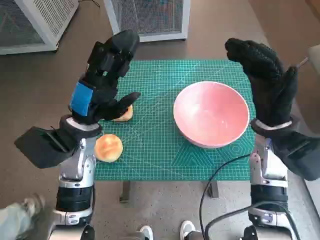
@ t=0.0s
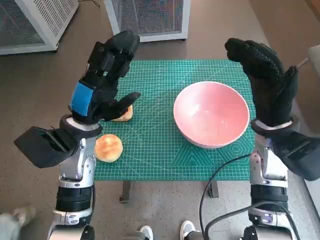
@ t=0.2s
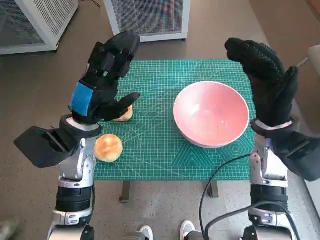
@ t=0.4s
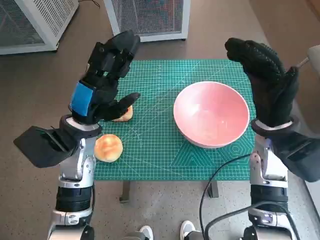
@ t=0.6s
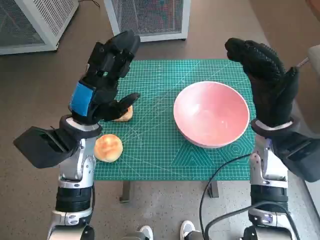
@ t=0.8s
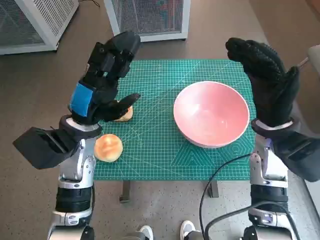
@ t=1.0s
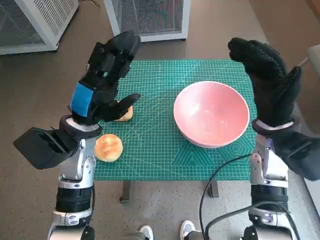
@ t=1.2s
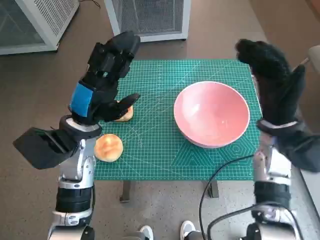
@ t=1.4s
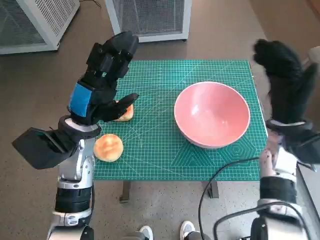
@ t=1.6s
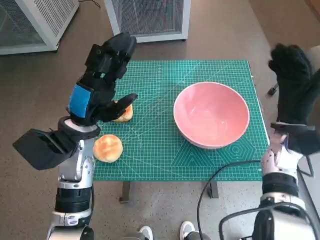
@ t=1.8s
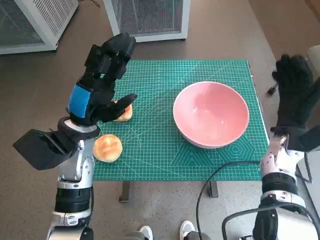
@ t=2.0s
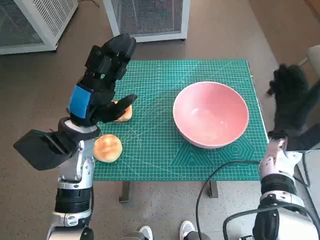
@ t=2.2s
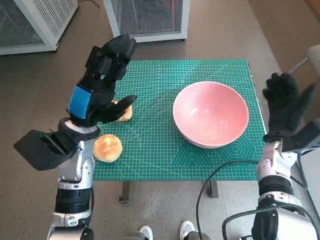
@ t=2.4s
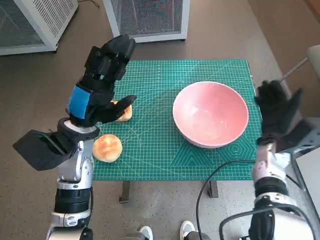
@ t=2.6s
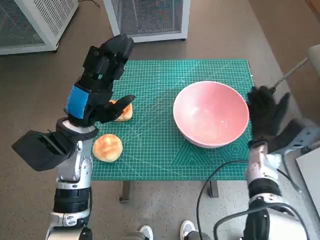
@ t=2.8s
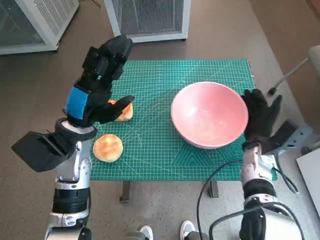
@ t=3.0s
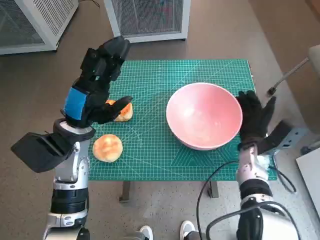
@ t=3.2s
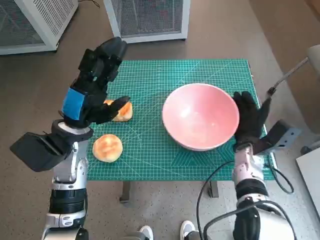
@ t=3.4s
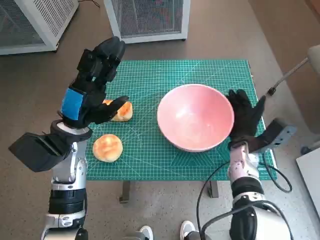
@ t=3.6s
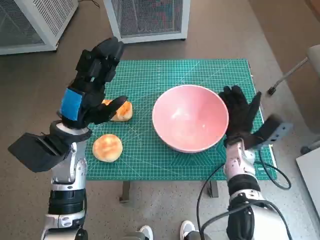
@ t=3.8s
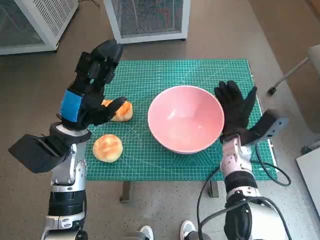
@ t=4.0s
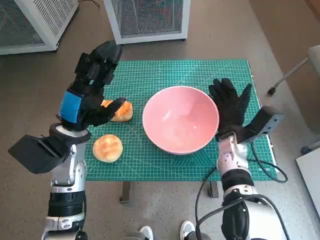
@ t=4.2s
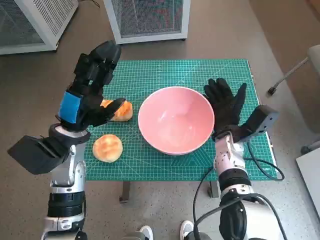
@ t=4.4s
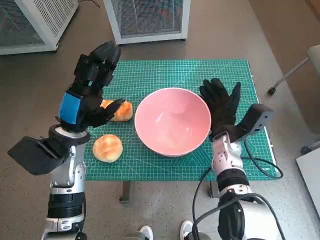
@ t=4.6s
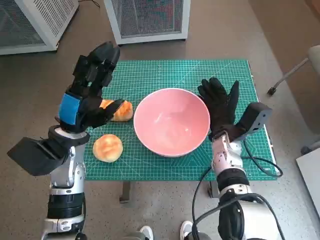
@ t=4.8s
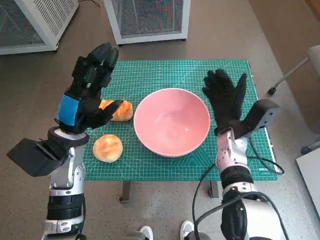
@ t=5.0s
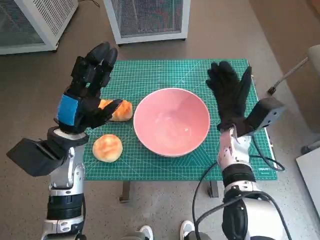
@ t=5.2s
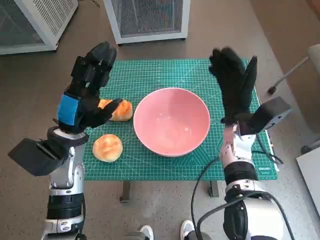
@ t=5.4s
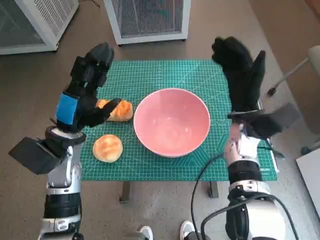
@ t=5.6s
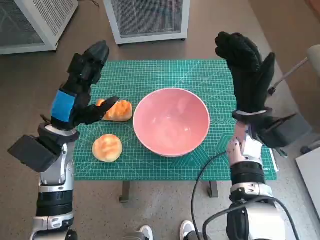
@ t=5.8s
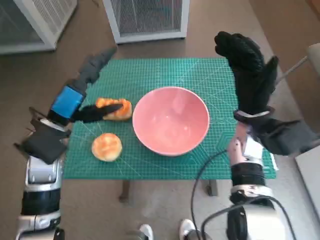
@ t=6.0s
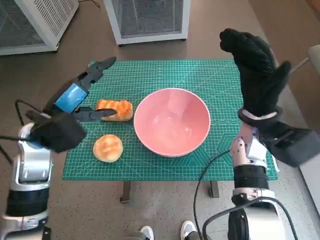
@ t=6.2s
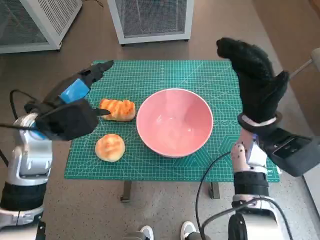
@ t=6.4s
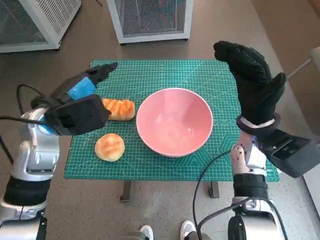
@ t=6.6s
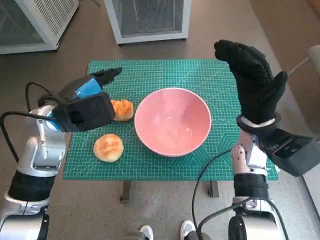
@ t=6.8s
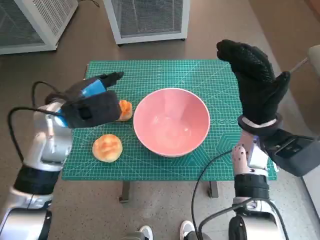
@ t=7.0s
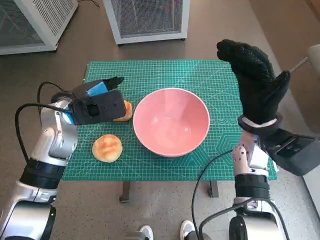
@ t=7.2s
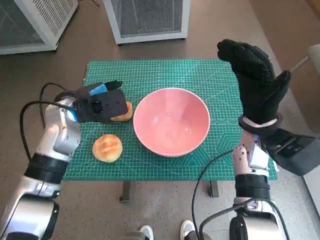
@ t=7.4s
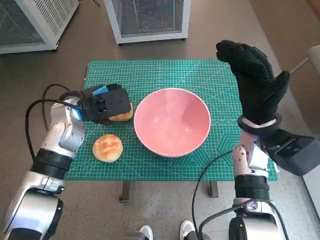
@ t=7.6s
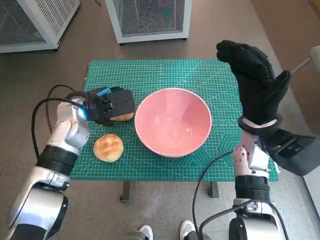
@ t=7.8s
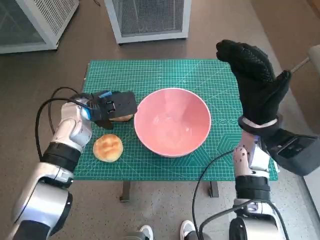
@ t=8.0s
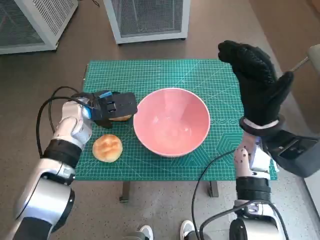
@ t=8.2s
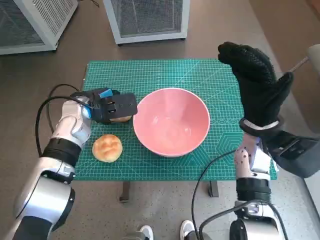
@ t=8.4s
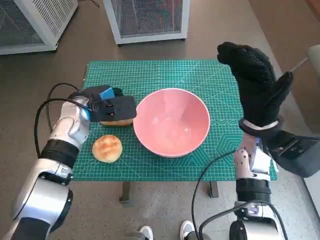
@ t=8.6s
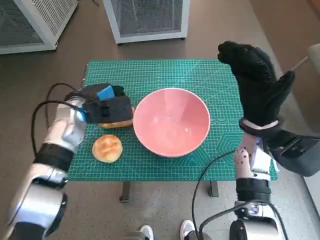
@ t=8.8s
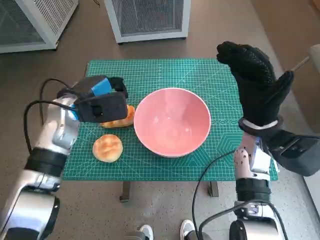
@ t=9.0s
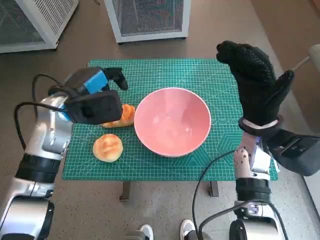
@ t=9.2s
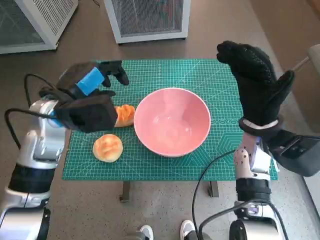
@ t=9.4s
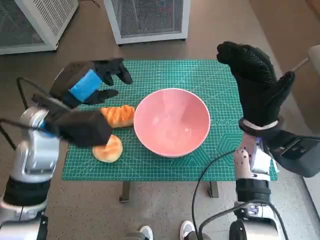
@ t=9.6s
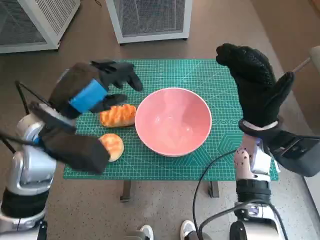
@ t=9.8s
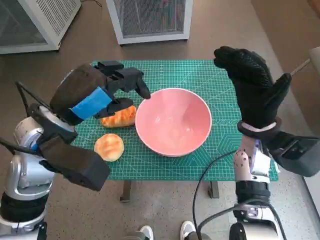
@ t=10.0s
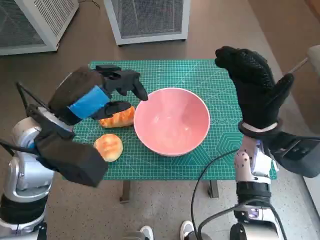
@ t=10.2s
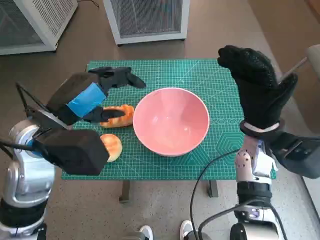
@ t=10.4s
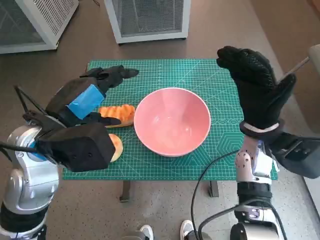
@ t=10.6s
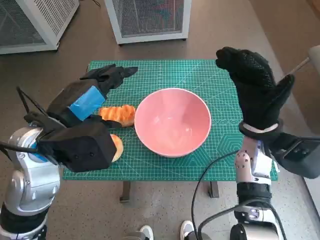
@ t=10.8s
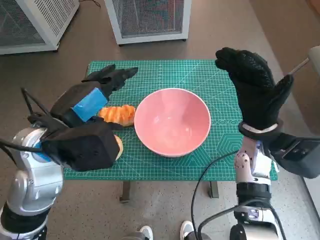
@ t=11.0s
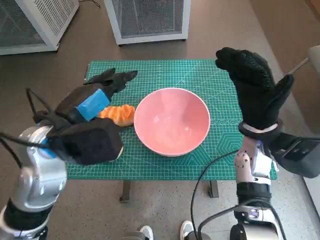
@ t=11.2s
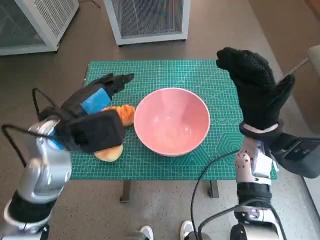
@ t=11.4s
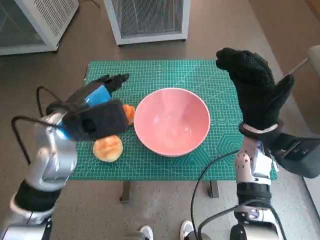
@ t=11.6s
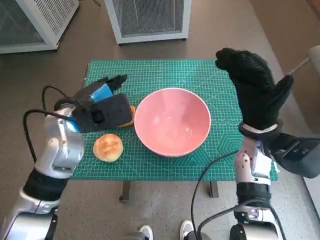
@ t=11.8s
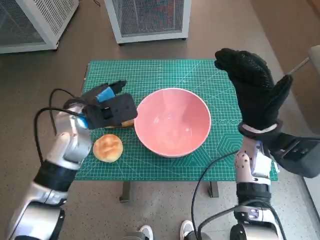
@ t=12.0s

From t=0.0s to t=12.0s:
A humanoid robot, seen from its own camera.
Task of the whole recording: Push the bowl into the center of the table and put the bread into the bowl.
Step, from t=0.0s to t=5.0s: Move the pink bowl to the center of table with right hand.
From t=1.6s to t=3.0s: The right hand goes some 10 cm downward.
From t=3.0s to t=4.4s: The right hand goes some 5 cm to the left.
From t=4.4s to t=6.0s: The right hand is displaced upward by roughly 10 cm.
From t=6.0s to t=7.6s: The left hand goes approximately 5 cm forward.
From t=7.6s to t=9.0s: There are only small adjustments of the hands.
From t=9.0s to t=10.4s: The left hand travels backward and upward by some 10 cm.
From t=10.4s to t=12.0s: The left hand is displaced forward and downward by roughly 10 cm.

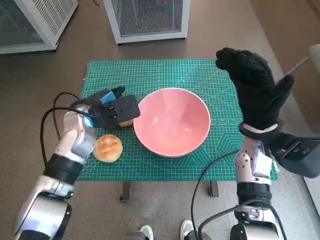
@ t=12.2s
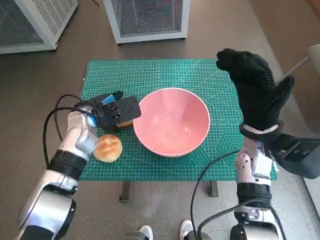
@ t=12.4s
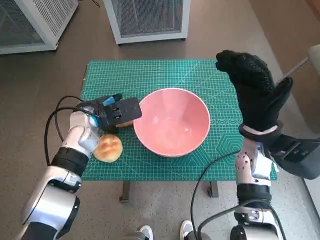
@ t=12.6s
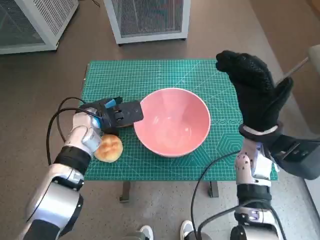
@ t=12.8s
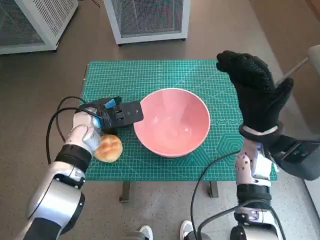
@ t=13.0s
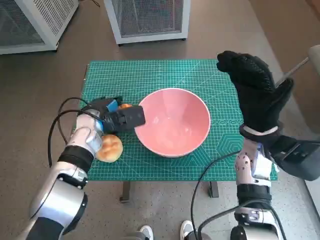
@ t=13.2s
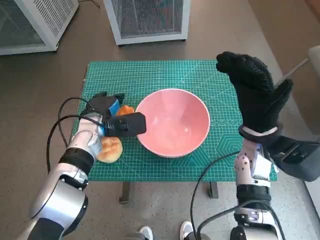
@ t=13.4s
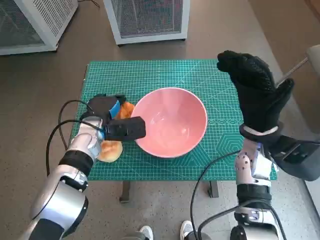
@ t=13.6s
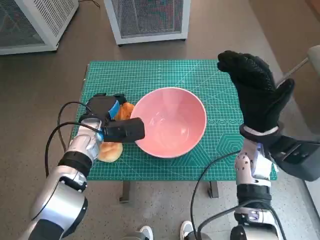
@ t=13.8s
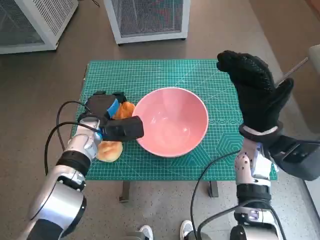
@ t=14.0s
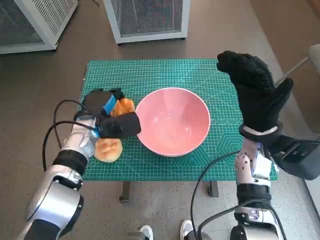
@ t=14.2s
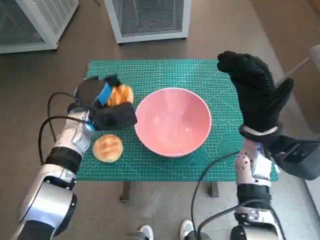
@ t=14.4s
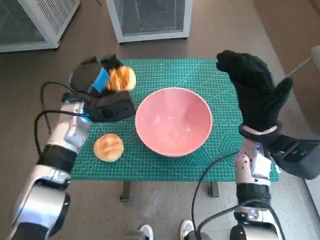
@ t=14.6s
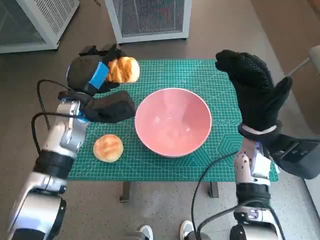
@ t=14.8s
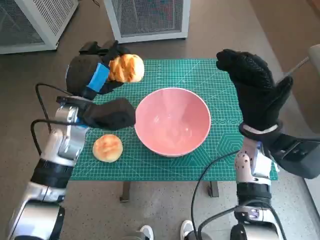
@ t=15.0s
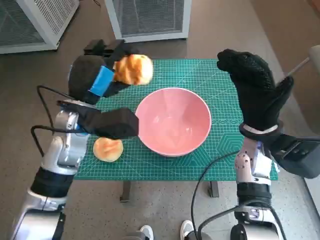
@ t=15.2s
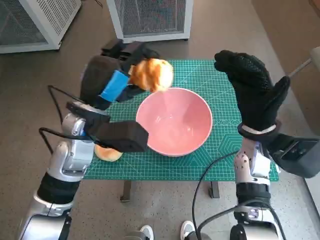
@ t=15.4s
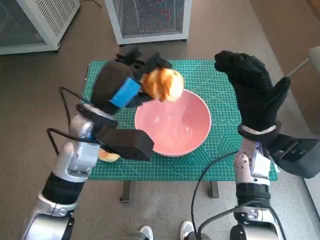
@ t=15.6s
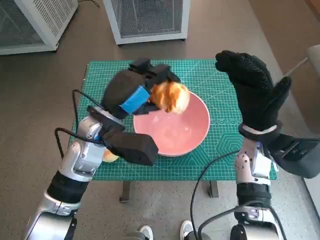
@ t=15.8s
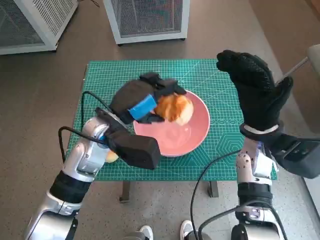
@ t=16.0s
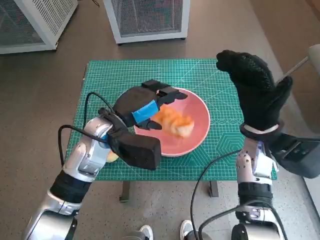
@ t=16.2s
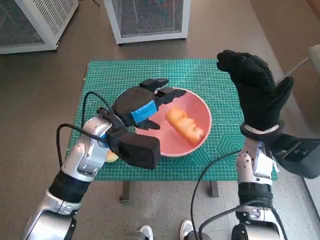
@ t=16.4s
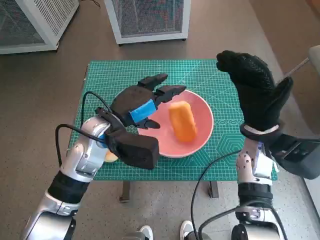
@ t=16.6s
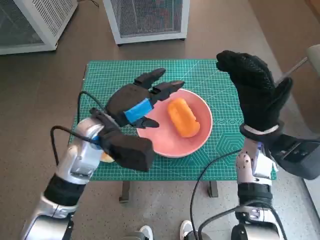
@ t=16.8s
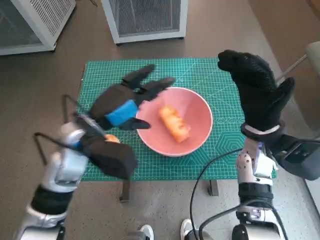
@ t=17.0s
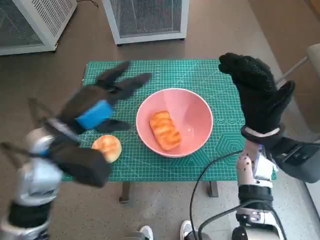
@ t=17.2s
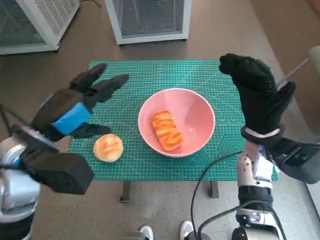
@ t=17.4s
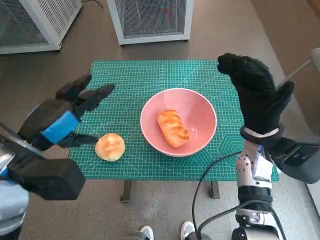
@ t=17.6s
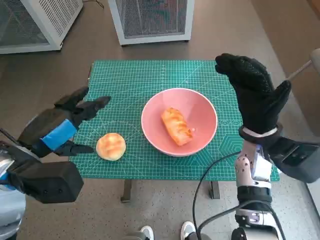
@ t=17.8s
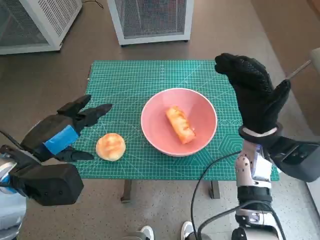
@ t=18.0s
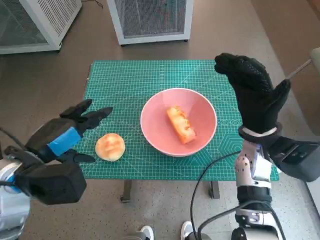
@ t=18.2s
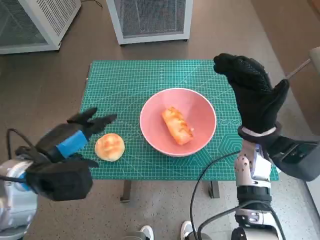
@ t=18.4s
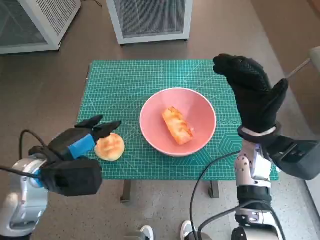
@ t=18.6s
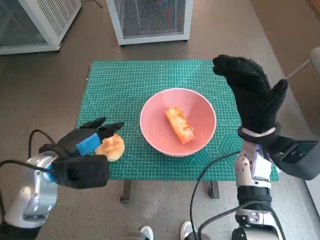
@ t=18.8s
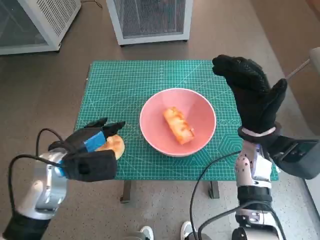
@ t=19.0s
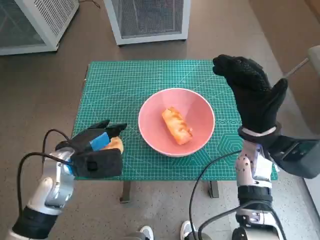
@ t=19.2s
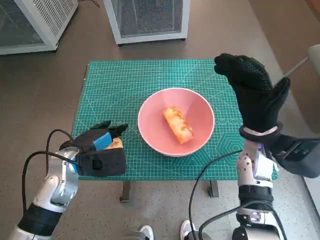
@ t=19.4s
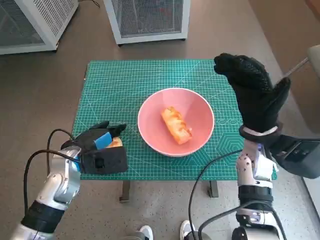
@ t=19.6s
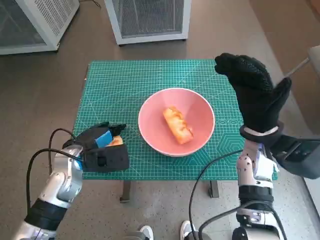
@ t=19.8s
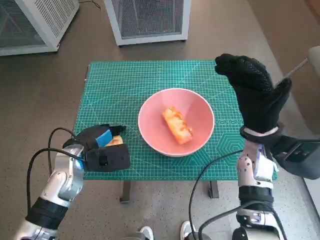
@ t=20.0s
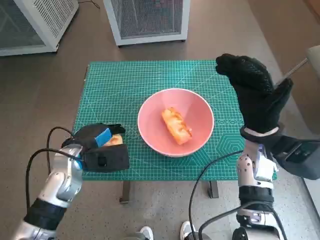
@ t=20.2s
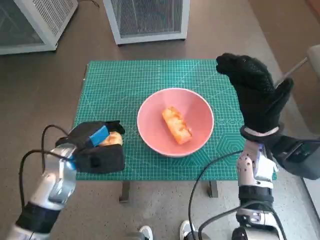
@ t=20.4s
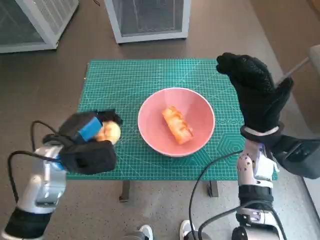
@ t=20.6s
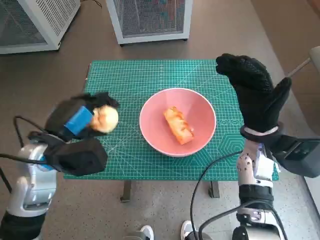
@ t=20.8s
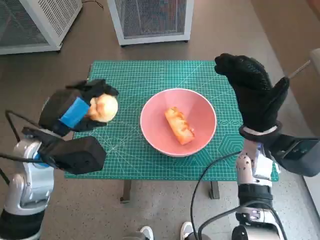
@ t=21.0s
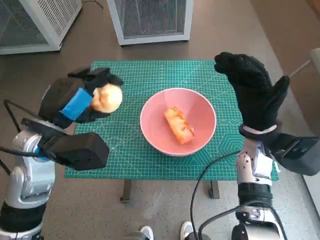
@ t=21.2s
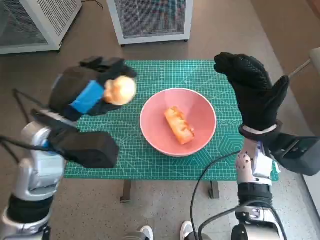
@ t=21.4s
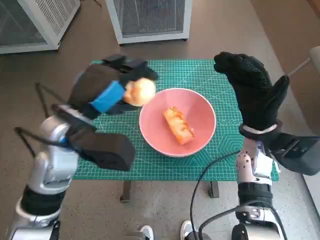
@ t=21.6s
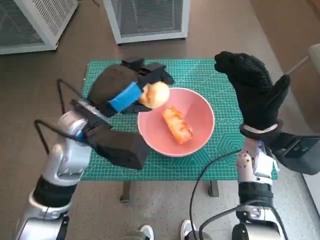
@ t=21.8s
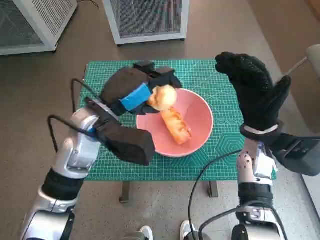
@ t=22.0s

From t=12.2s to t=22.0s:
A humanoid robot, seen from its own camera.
Task of the whole recording: Push the bowl into the center of the table and put the bread into the bowl.
Step, from t=13.8s to t=16.2s: Place the long bread in pink bowl with left hand.
Step, from t=16.4s to t=19.6s: Grasp the round bread with left hand.
From t=12.2s to t=13.6s: The left hand heads downward, covering approximately 5 cm.
From t=13.6s to t=15.0s: The left hand travels upward by about 10 cm.
From t=15.0s to t=16.4s: The left hand heads to the right, covering about 5 cm.
From t=16.4s to t=17.8s: The left hand travels to the left and backward by roughly 15 cm.
From t=17.8s to t=19.2s: The left hand heads downward, covering about 10 cm.
From t=19.2s to t=20.6s: The hands make only small movements.
From t=20.6s to t=22.0s: The left hand travels to the right and upward by approximately 10 cm.
